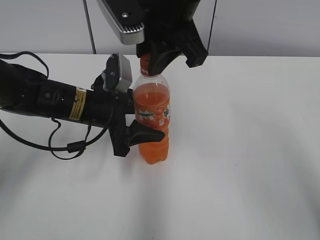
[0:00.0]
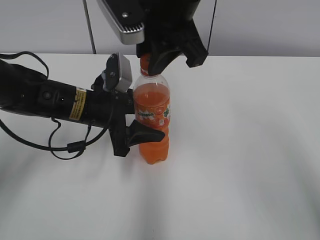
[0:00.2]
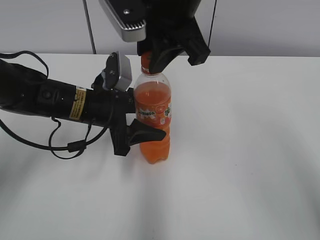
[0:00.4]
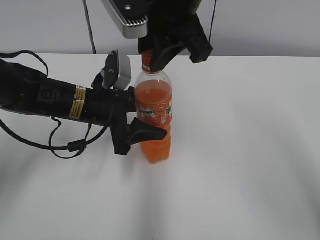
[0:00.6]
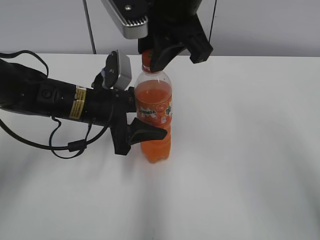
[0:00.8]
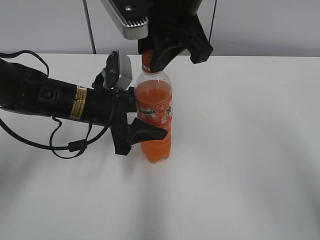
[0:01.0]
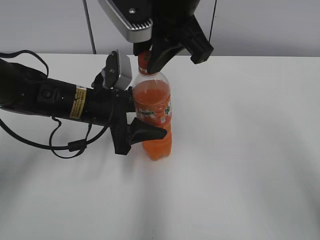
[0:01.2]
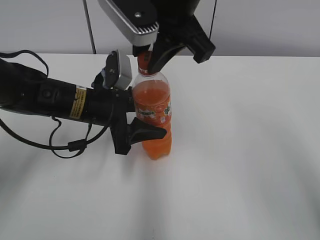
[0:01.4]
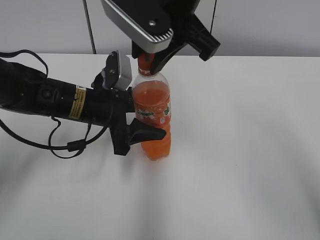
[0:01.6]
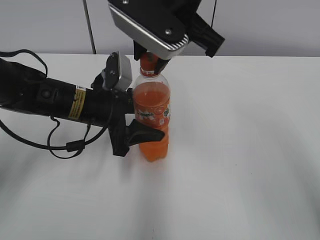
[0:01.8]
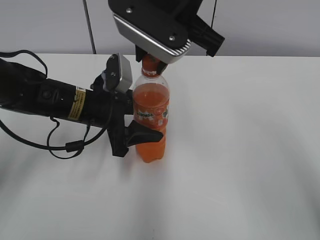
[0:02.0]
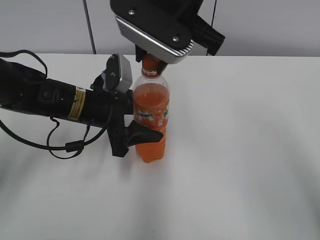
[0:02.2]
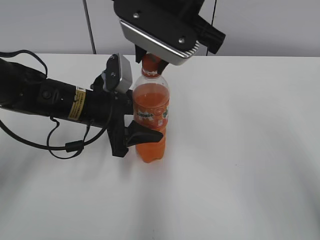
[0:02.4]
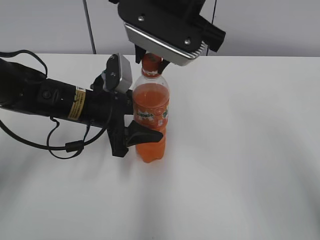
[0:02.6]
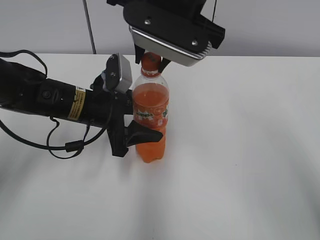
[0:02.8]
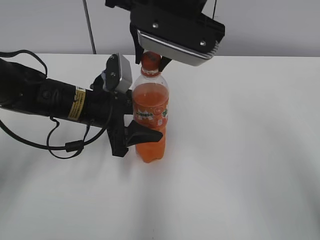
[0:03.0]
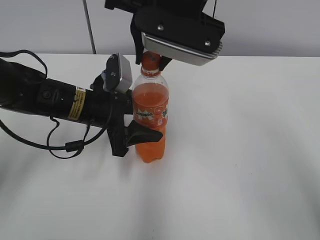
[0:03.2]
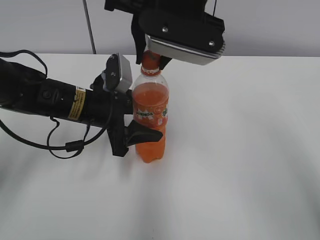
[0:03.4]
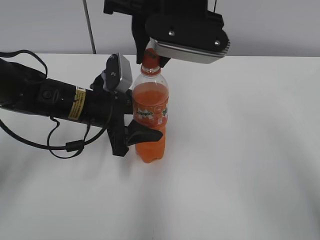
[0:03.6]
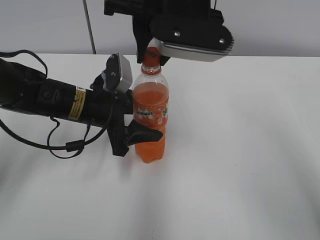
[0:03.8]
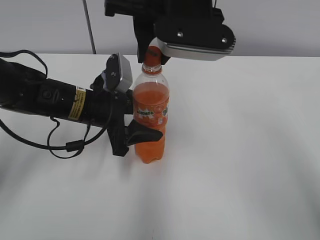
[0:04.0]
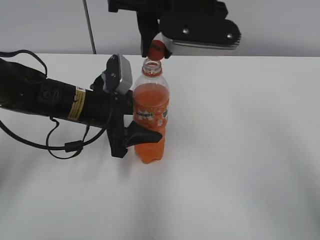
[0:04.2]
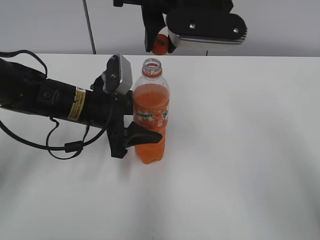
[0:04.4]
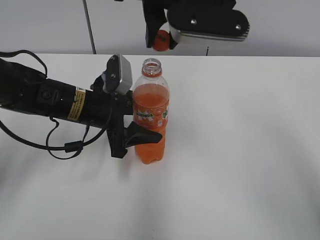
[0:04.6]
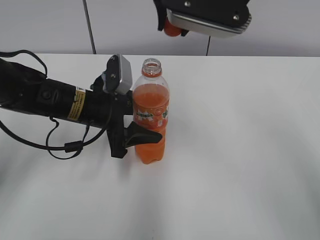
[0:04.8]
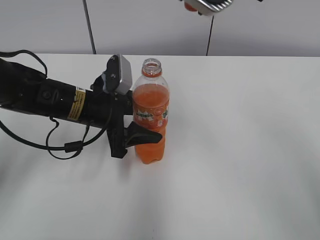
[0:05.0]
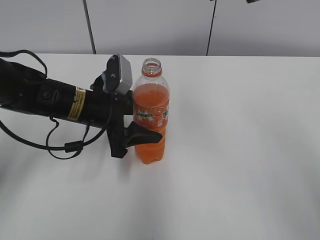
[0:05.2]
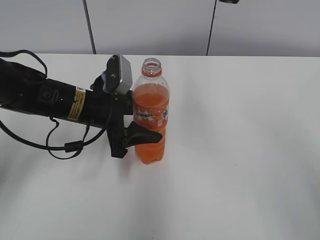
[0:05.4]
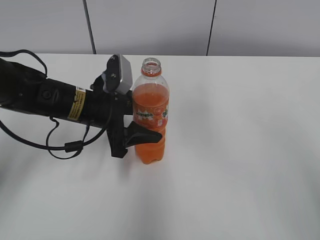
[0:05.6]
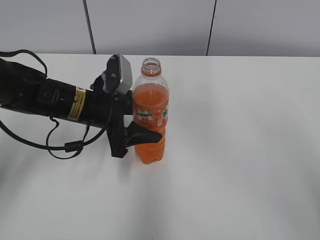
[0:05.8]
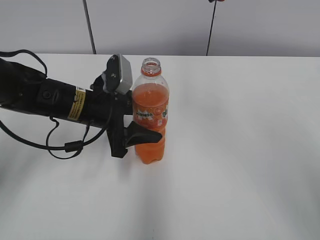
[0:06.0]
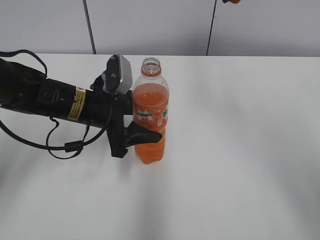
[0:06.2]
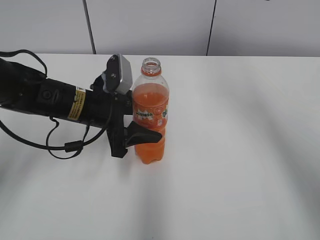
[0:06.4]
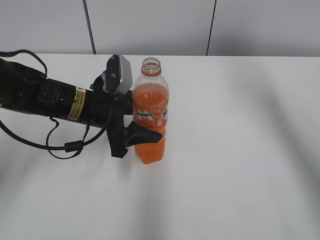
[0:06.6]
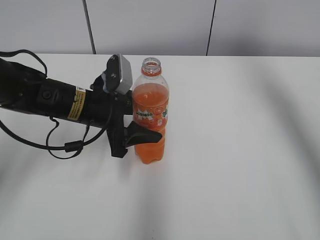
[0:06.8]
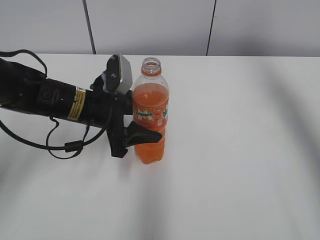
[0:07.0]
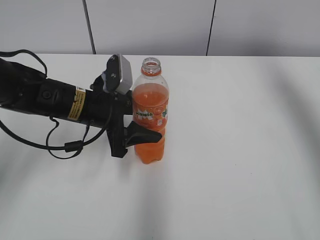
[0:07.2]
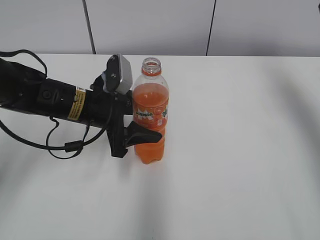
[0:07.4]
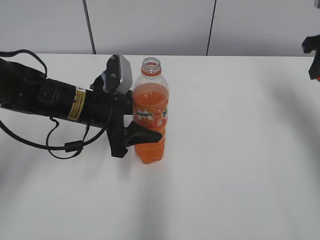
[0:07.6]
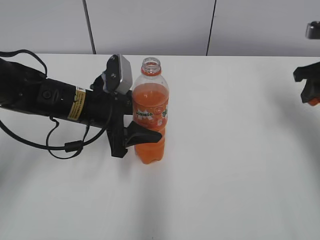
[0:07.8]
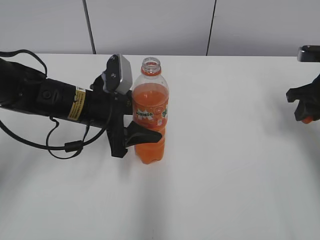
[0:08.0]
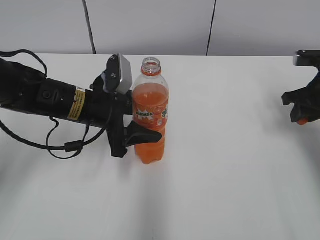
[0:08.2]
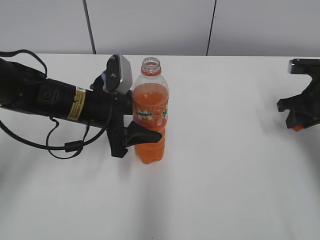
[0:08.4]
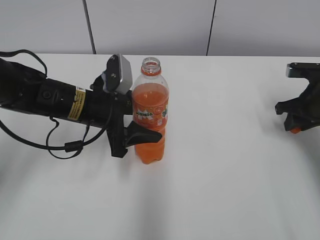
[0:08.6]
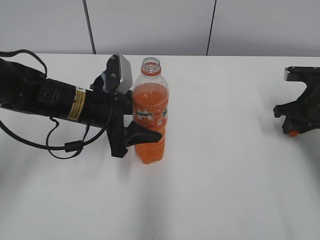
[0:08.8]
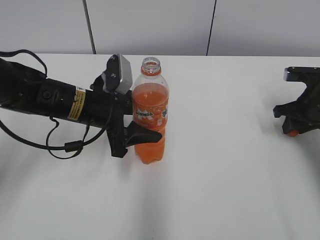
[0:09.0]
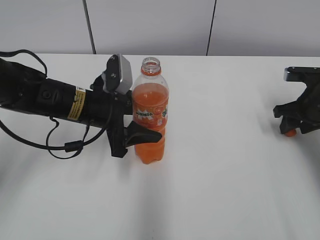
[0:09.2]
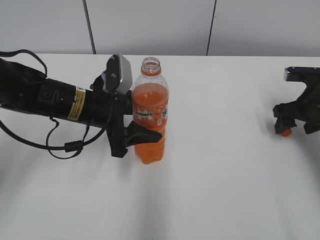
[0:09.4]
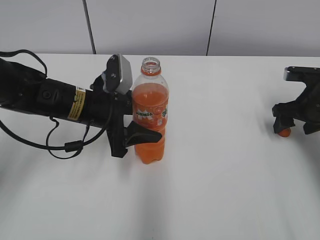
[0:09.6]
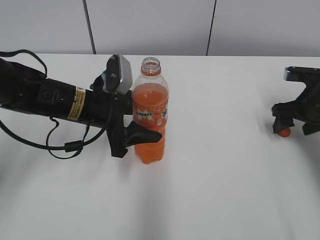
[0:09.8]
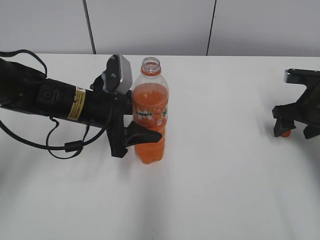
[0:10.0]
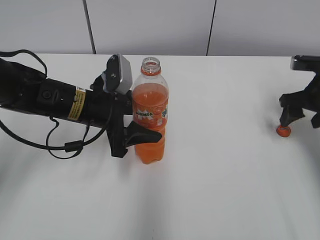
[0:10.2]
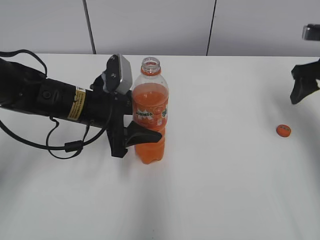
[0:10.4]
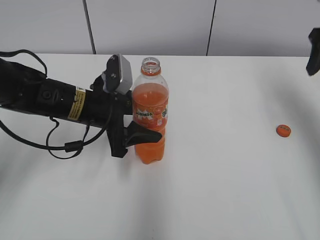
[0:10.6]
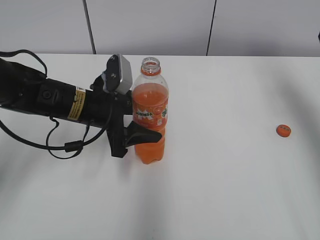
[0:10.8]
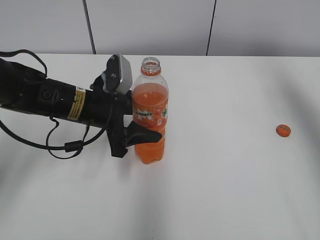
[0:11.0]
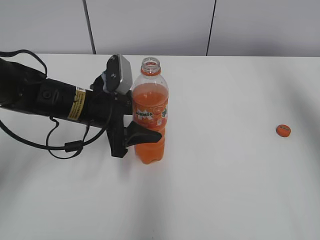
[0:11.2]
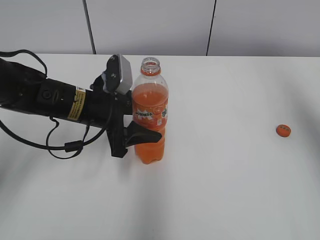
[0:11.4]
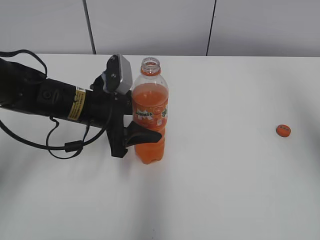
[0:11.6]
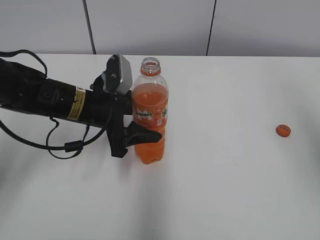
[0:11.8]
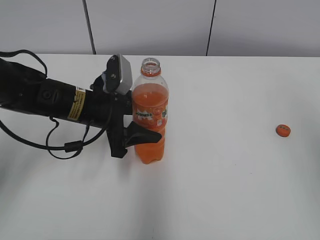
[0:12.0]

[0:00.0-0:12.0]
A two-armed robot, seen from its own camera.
Step, 0:00.0 to 0:04.0: Twist the bottle cap with the right hand.
Step, 0:04.2 to 0:09.4: Place the bottle cap on the right.
0:00.0 to 0:01.6: The grippers stay close to where they were, moving slightly.
0:04.4 to 0:06.0: The right gripper heads to the right and upward, covering roughly 10 cm.
0:06.0 to 0:07.6: The right gripper moves to the right and downward, approximately 25 cm.
0:07.6 to 0:09.0: The right gripper travels downward by approximately 15 cm.
0:09.0 to 0:10.4: The right gripper goes roughly 10 cm upward, and opens up.
0:10.4 to 0:12.0: The right gripper shifts approximately 35 cm backward and upward.

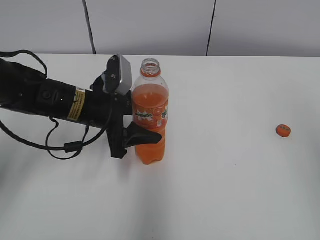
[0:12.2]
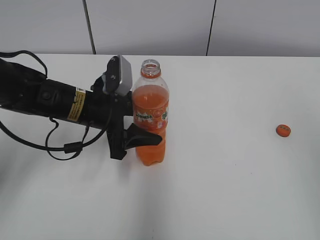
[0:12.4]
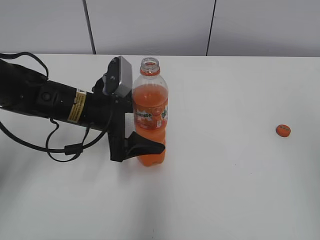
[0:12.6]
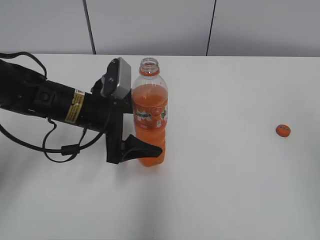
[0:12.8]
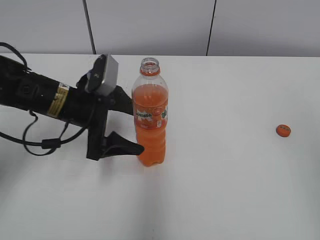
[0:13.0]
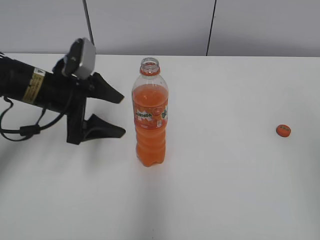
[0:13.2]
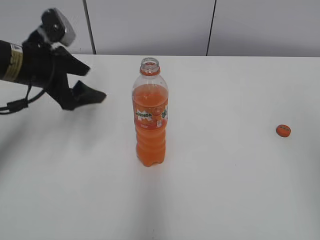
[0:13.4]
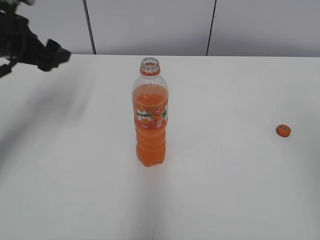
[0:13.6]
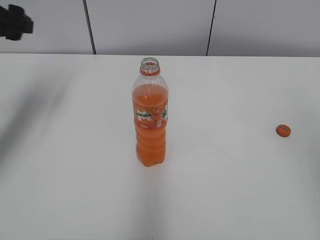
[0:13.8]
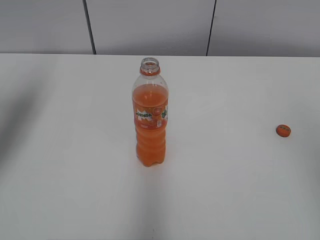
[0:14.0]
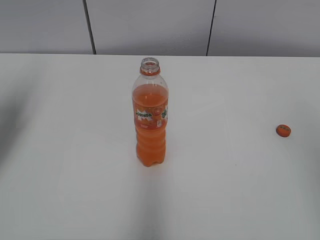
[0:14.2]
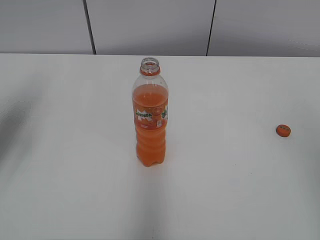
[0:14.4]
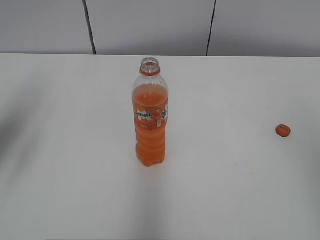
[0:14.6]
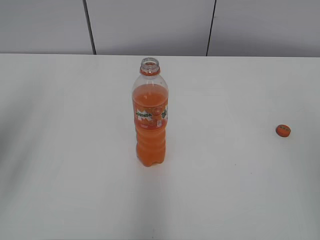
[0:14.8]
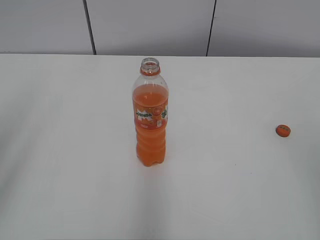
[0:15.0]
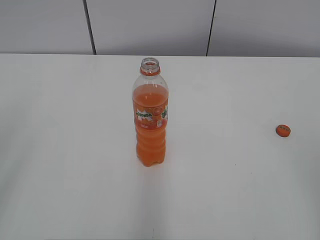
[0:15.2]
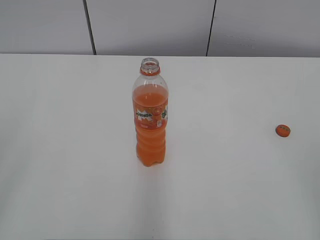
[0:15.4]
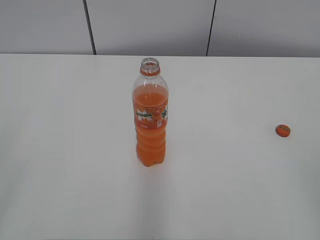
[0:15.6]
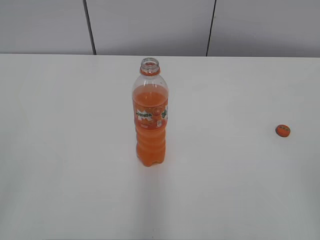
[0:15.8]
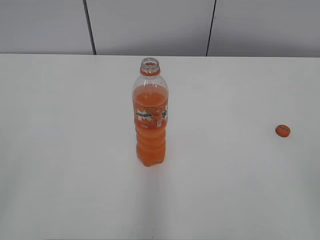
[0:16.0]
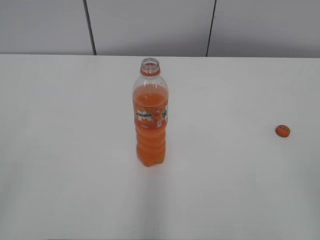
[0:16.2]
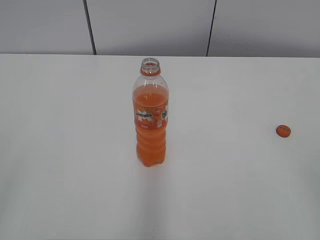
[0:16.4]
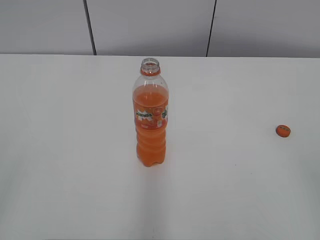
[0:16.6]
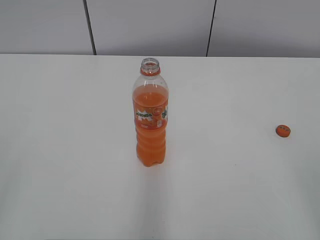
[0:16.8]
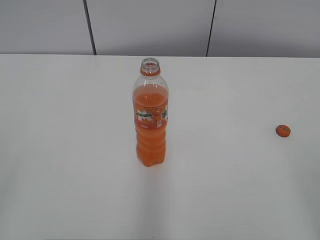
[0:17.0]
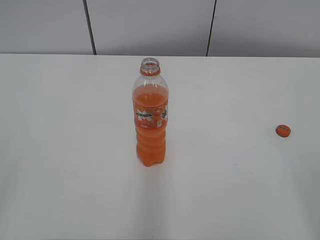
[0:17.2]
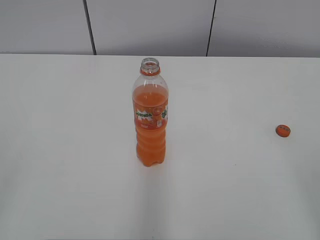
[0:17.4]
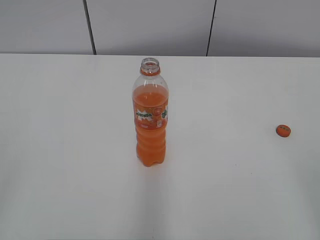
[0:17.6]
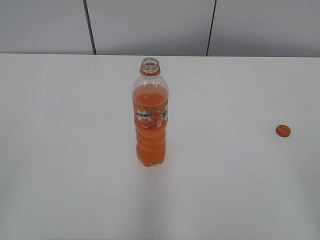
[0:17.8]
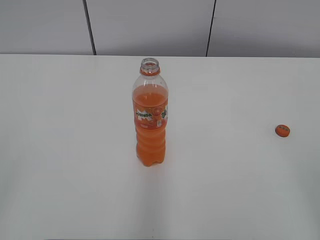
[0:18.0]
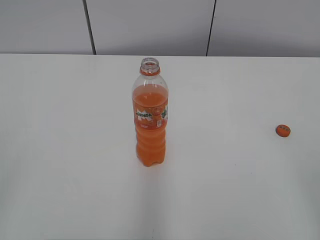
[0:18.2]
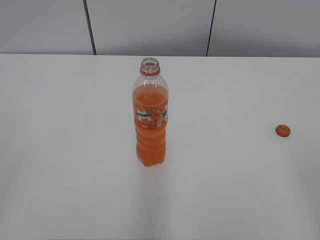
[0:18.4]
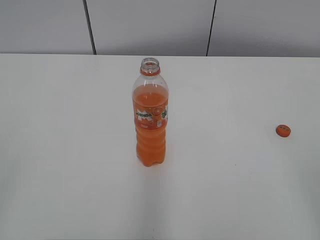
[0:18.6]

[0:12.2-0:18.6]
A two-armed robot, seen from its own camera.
0:12.2 to 0:13.8: The left gripper is displaced to the left and upward by some 20 cm.
0:13.8 to 0:15.4: The left gripper shifts some 30 cm backward.
0:17.0 to 0:18.6: Both grippers stay put.
